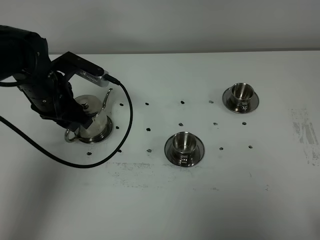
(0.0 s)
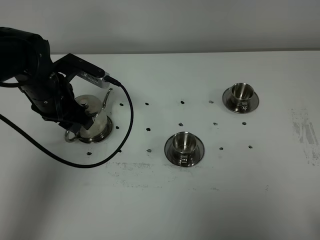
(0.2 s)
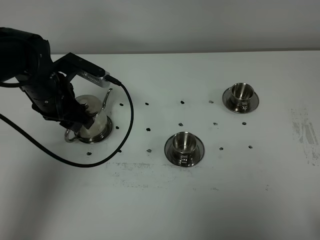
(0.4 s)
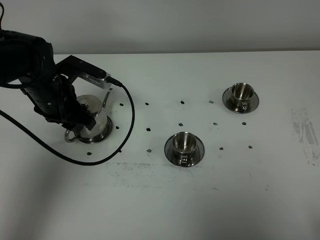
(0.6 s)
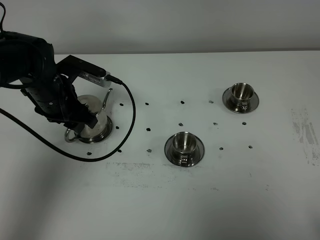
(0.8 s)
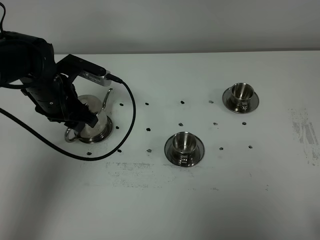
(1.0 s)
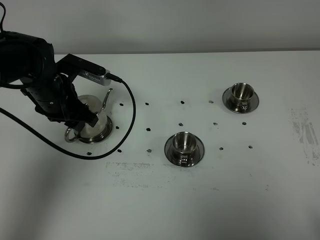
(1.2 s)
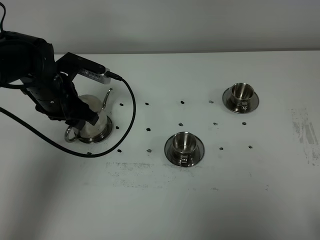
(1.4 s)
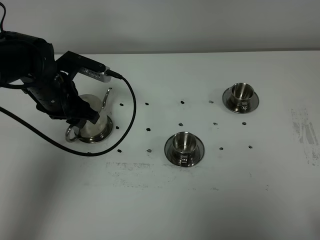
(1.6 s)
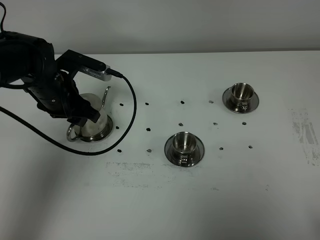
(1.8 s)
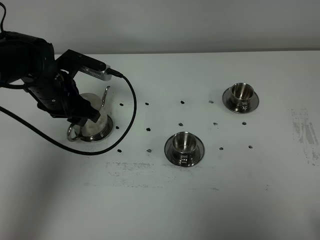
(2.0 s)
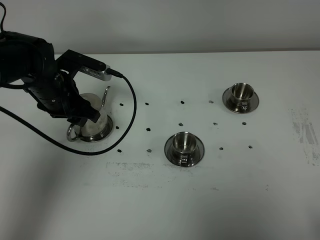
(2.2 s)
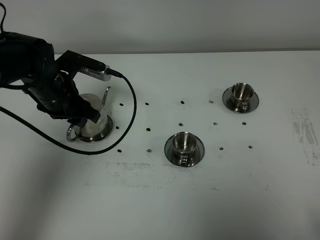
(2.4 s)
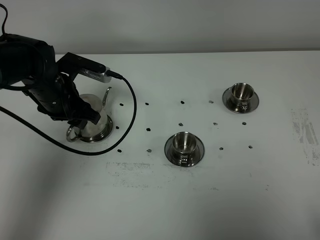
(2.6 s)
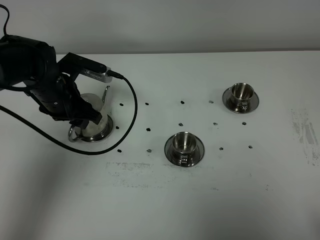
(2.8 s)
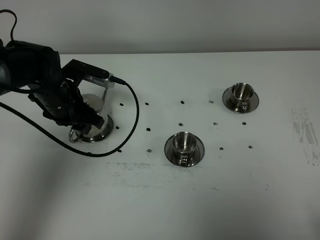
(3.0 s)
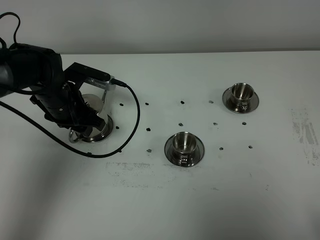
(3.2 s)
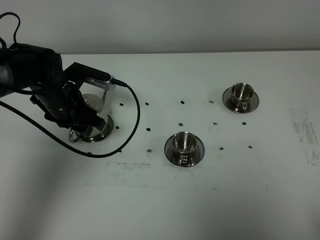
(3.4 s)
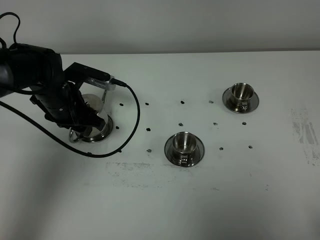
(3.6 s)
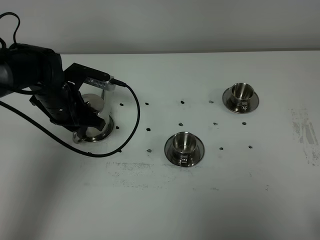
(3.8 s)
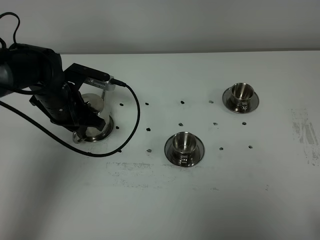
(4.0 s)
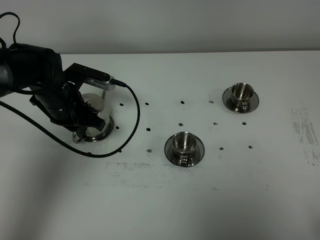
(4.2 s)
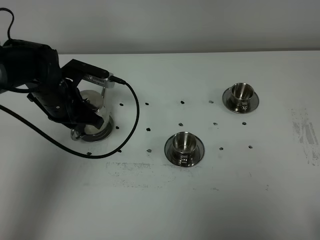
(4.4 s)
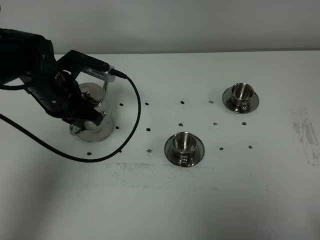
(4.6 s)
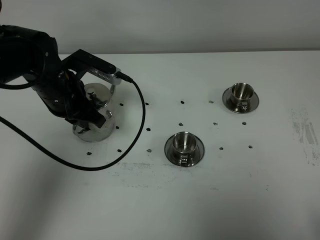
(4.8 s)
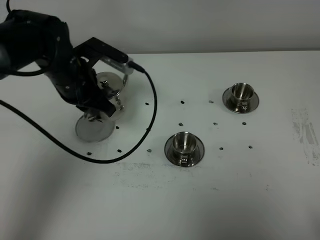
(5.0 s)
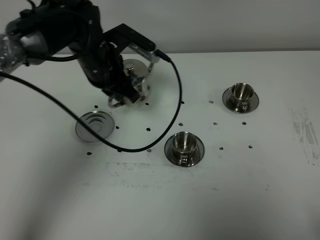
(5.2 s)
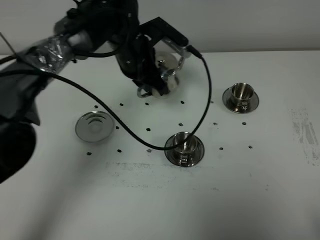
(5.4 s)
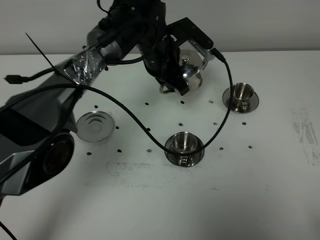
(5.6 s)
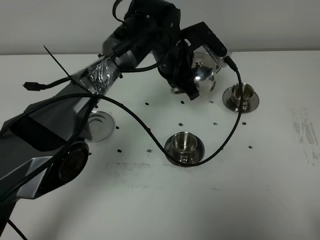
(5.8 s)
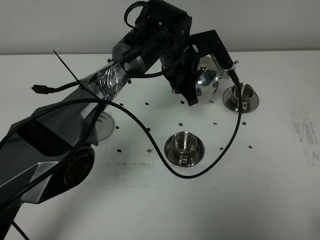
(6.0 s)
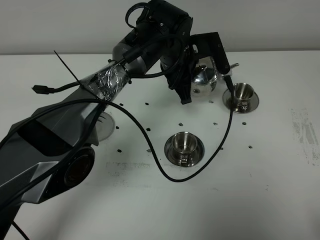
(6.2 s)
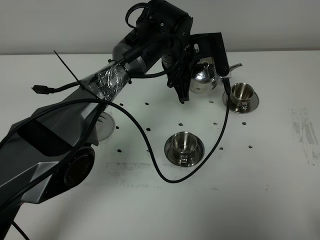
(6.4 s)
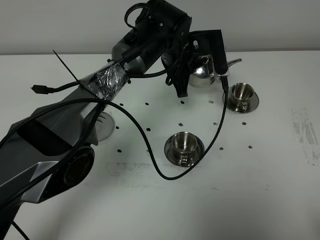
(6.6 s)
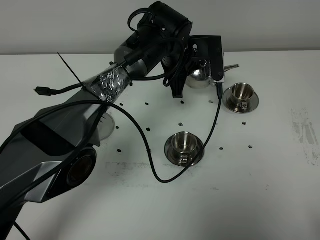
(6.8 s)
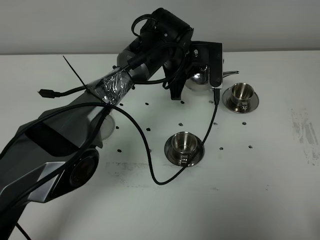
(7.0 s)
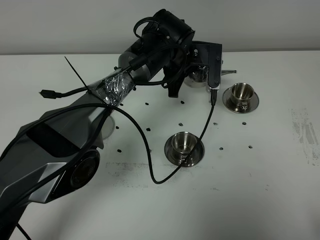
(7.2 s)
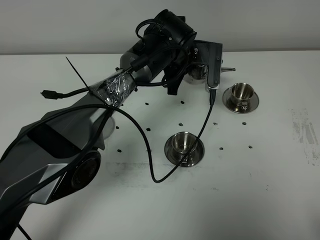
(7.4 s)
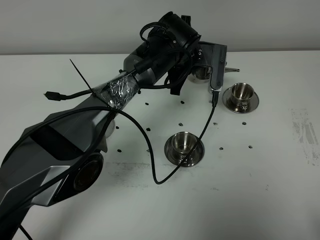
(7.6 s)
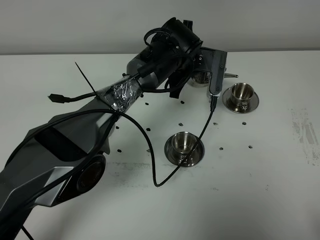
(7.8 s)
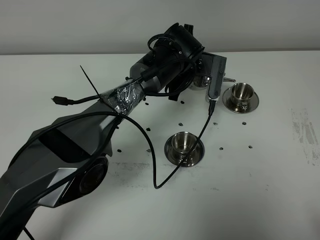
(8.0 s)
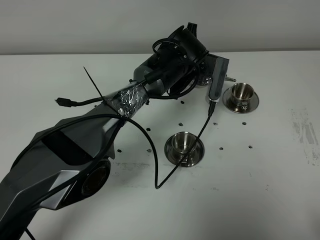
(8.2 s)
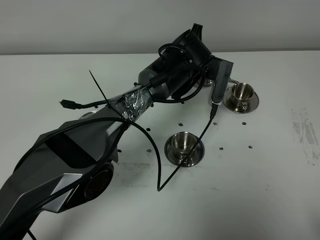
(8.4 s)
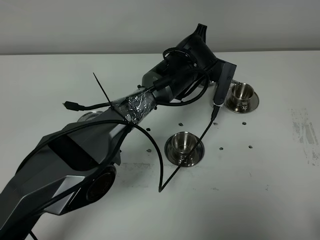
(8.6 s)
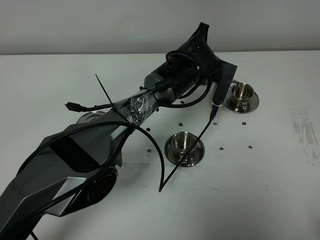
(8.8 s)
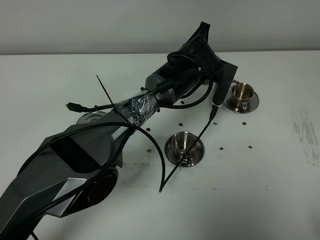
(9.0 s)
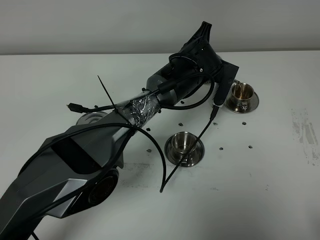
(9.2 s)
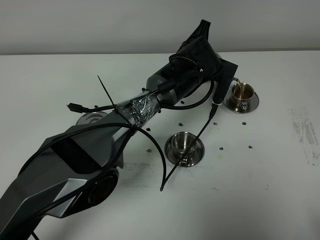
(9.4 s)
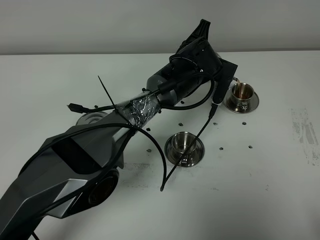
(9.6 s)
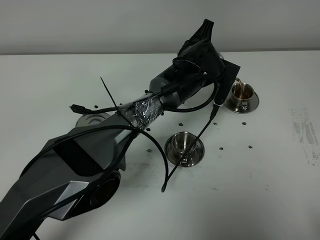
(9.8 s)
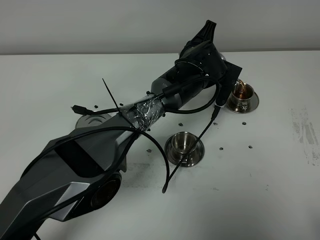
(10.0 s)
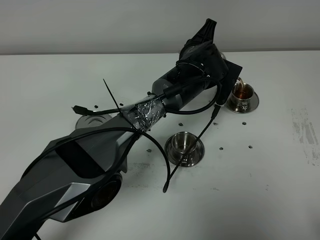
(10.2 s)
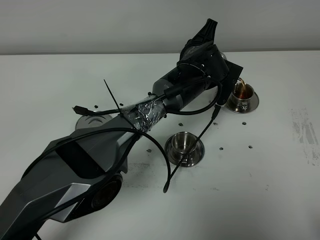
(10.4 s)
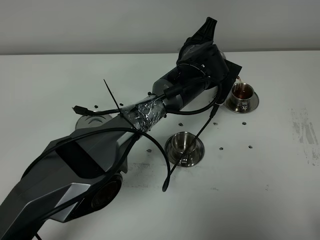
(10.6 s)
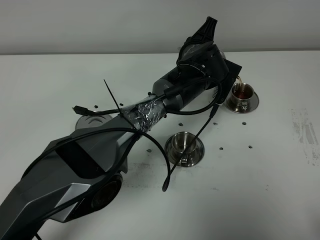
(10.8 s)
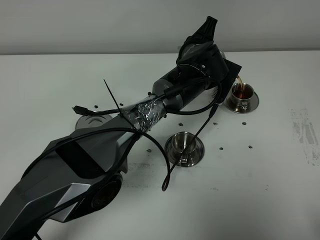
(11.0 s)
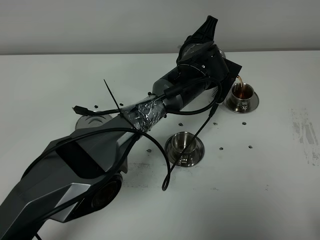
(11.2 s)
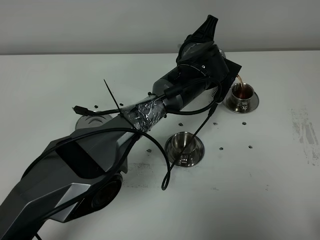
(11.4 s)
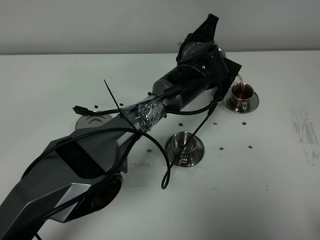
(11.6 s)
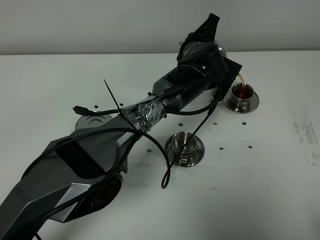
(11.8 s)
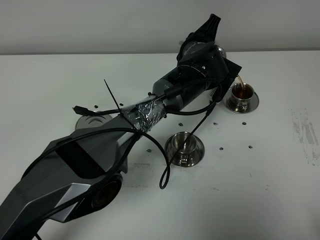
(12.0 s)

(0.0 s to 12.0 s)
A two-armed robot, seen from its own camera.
Task of the whole recording: grasp the stainless steel teapot and pour the tea into the two stainless steel teacups one by one, put the stainless steel teapot back in its original place.
Step, 0.0 s - 4.6 s: Pick up the teapot with the left gripper.
0.0 s - 3.0 s: The grippers stay close to where they were, moving slightly.
3.0 s - 4.4 s: The left gripper closes up.
4.4 s - 6.0 s: The left gripper heads to the right, covering about 20 cm.
9.0 s - 12.0 s: The grippers make only small movements.

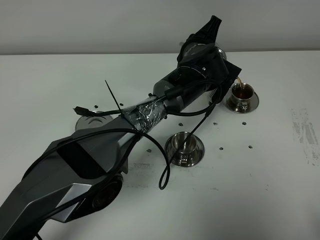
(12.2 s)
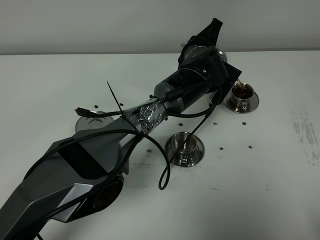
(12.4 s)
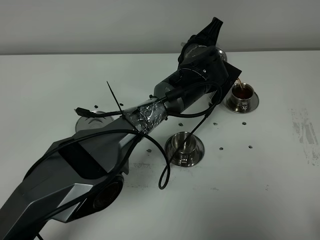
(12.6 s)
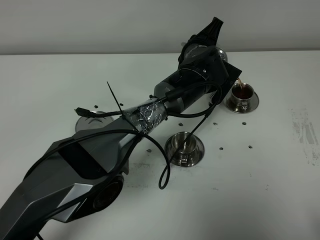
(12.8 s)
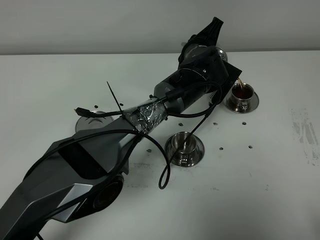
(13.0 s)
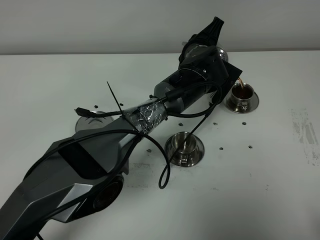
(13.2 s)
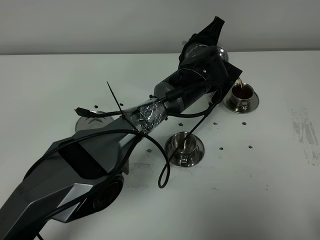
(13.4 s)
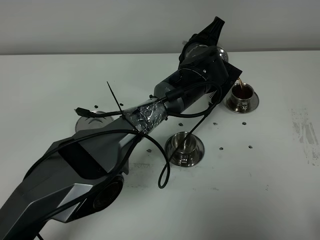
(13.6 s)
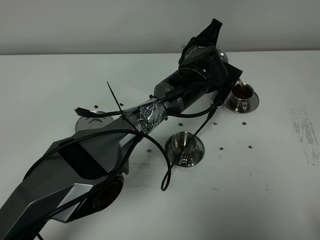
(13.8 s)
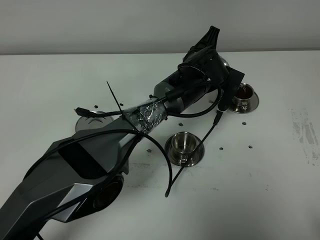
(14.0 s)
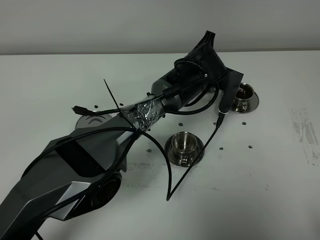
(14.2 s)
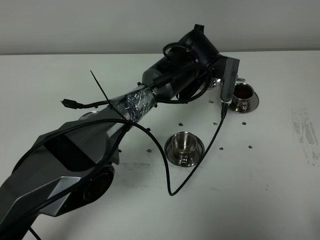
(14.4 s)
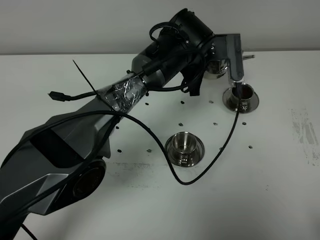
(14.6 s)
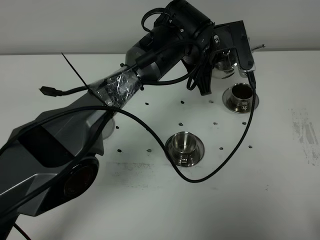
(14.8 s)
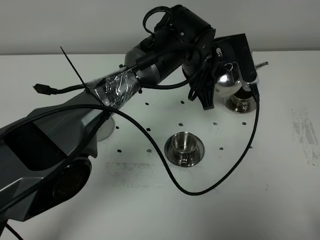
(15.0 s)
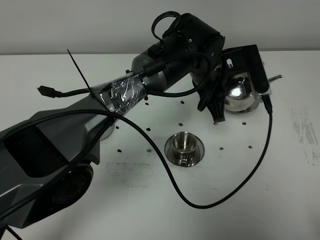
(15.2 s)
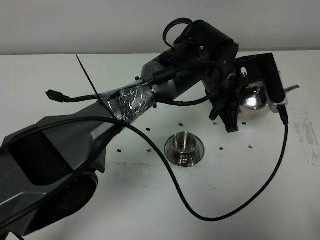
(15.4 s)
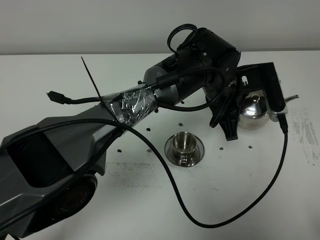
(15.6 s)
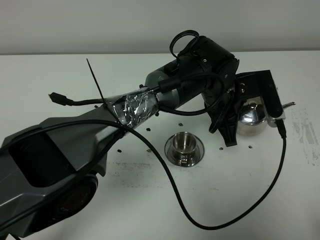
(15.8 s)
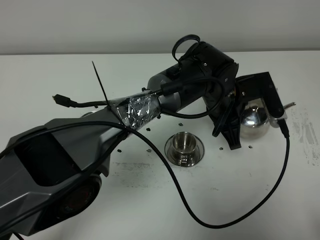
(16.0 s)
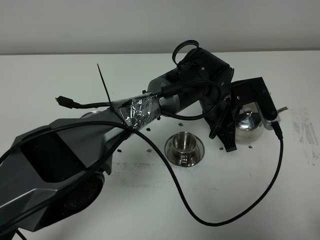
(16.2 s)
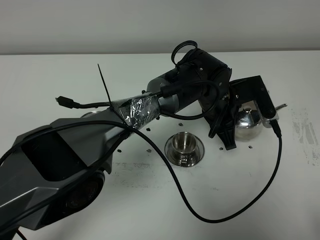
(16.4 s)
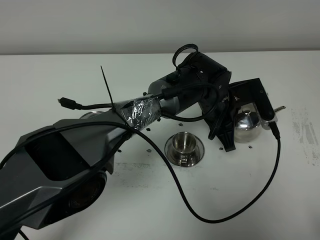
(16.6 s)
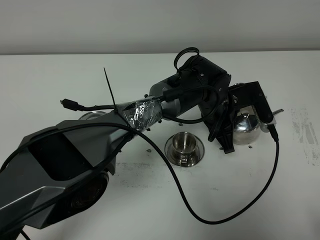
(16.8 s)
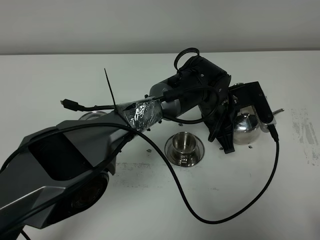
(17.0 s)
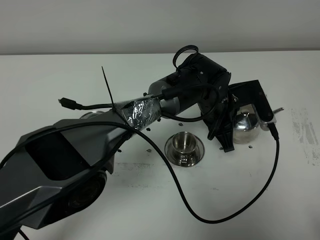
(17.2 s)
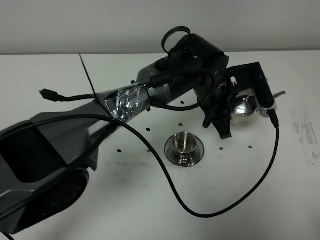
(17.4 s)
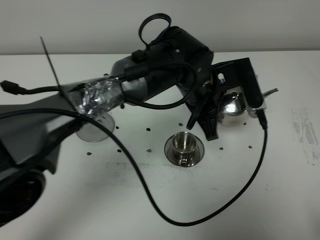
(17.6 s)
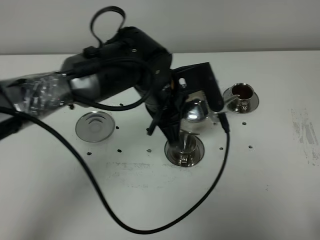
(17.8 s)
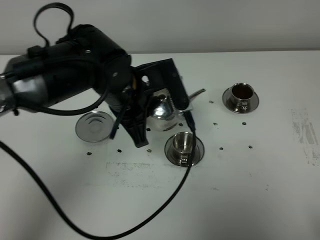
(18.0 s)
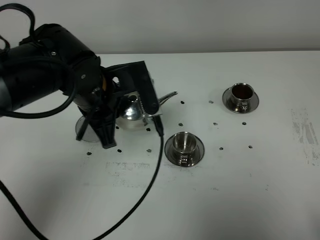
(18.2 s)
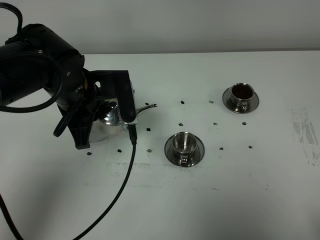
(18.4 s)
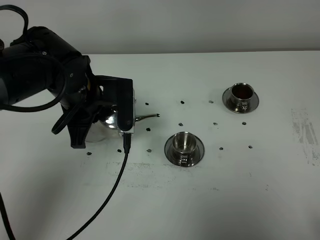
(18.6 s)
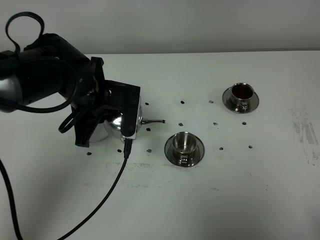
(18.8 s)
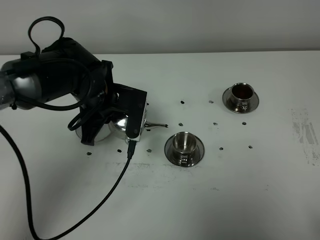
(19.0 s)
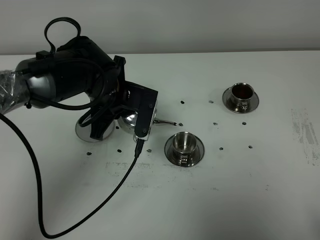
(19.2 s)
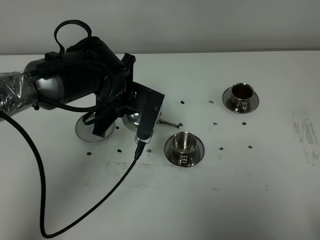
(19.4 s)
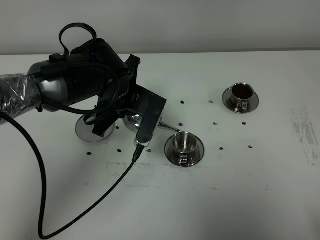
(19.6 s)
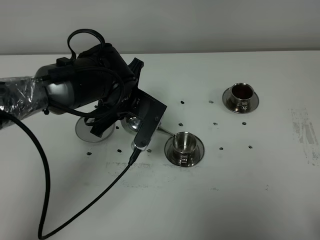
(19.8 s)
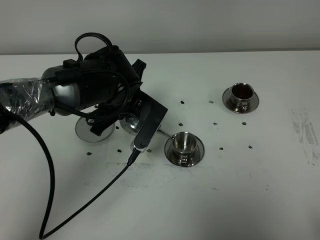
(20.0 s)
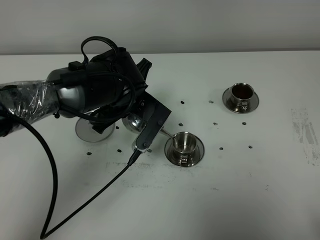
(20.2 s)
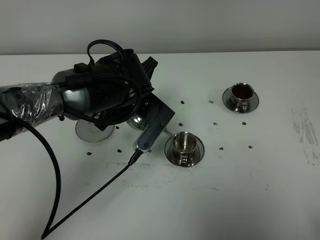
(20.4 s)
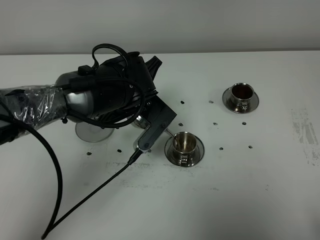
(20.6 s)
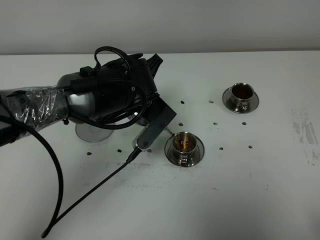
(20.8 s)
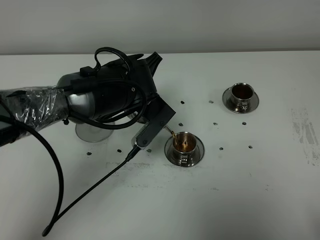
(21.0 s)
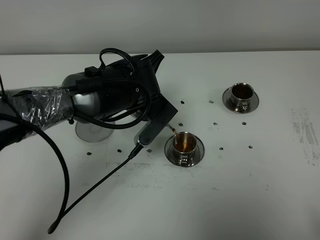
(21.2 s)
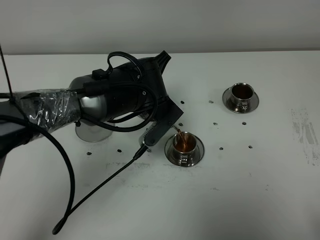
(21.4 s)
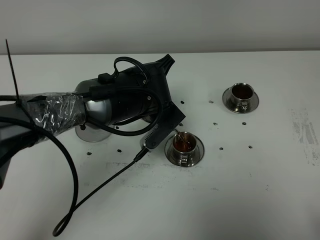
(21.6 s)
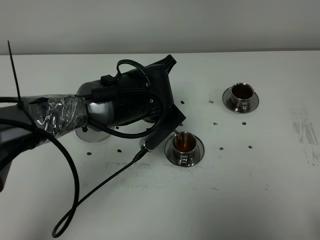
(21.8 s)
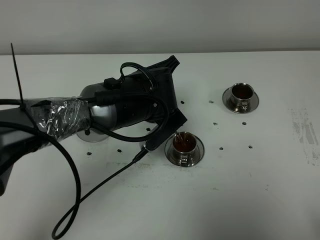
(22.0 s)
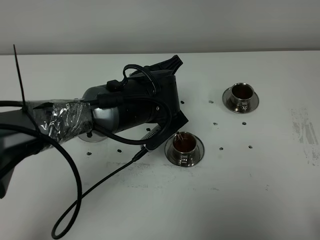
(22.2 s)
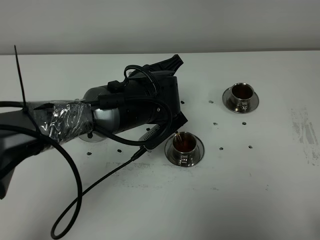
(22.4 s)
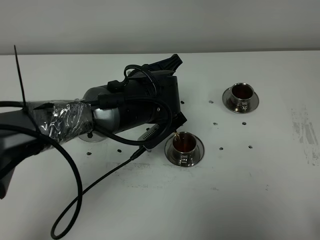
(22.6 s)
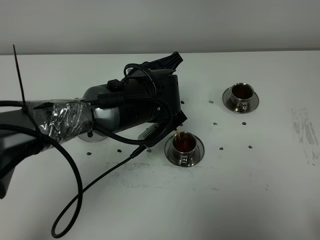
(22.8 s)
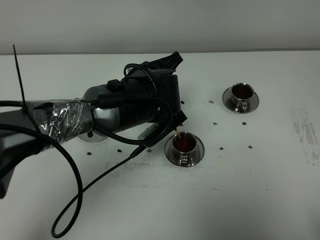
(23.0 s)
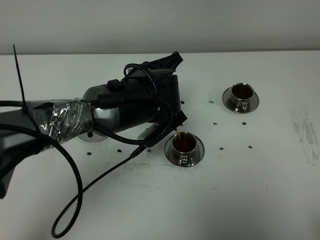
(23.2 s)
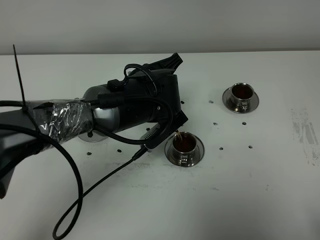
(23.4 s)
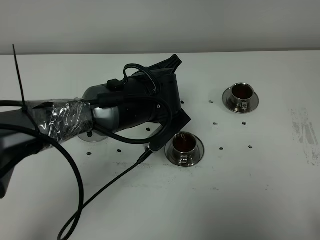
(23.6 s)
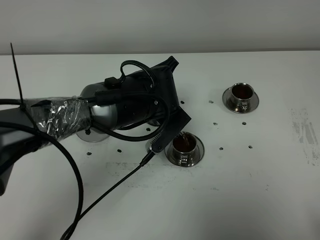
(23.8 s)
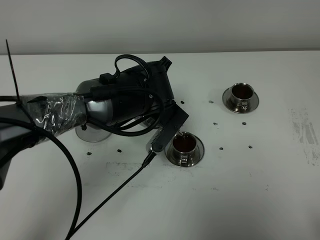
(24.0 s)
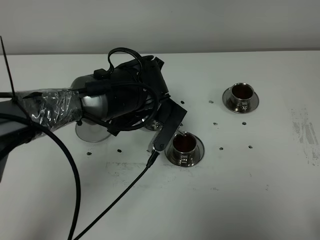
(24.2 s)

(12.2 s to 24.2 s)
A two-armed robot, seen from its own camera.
Task of the whole recording: grasp the stainless steel teapot and pour the tea into the two stainless steel teacups one by one, put the stainless steel teapot back in its original place.
12.2 s - 13.8 s: Neither gripper changes place.
13.8 s - 15.2 s: The left gripper goes approximately 5 cm backward.
15.2 s - 16.6 s: The left gripper heads downward, covering roughly 5 cm.
16.6 s - 18.2 s: The left gripper shifts roughly 25 cm to the left and upward.
18.2 s - 19.8 s: The left gripper moves downward, roughly 5 cm.
19.8 s - 21.2 s: There are only small adjustments of the grippers.
21.2 s - 22.6 s: The grippers stay close to where they were, moving slightly.
